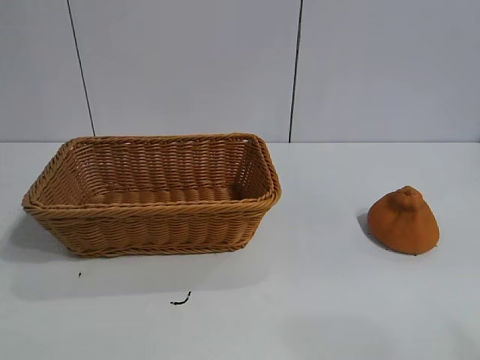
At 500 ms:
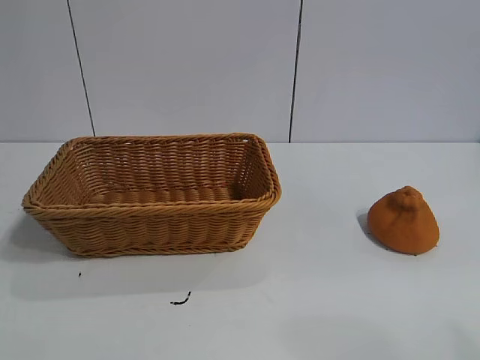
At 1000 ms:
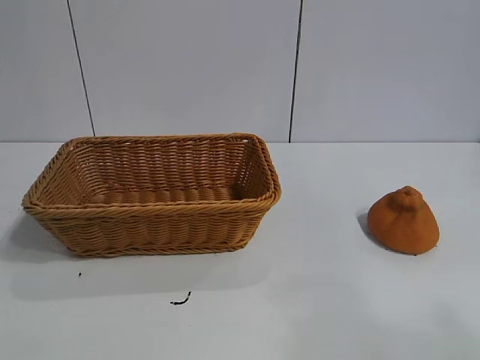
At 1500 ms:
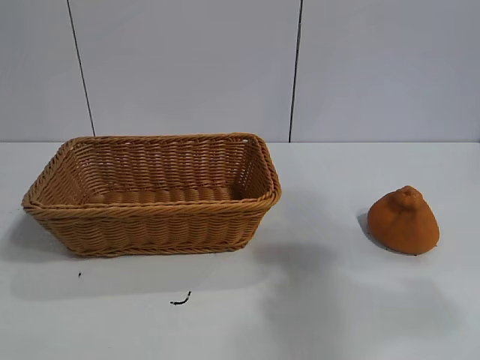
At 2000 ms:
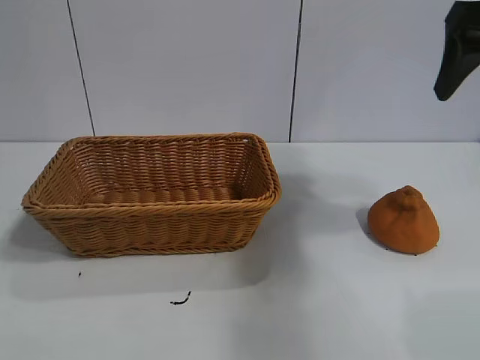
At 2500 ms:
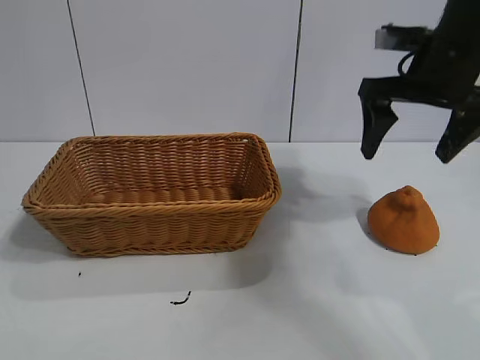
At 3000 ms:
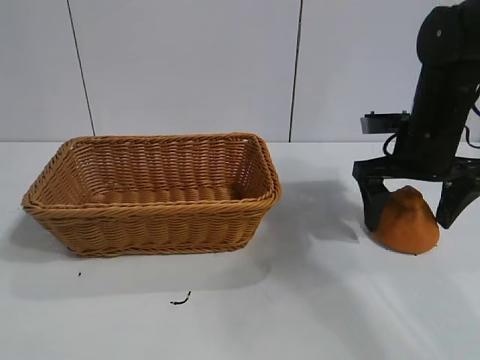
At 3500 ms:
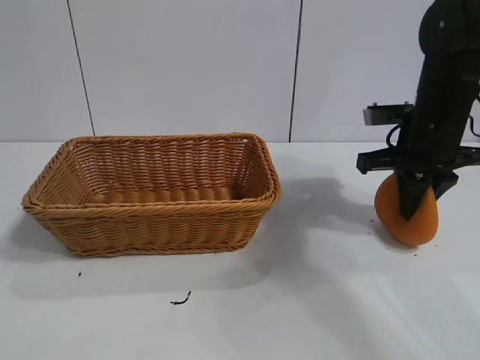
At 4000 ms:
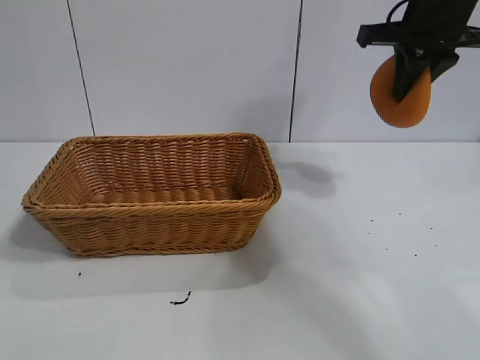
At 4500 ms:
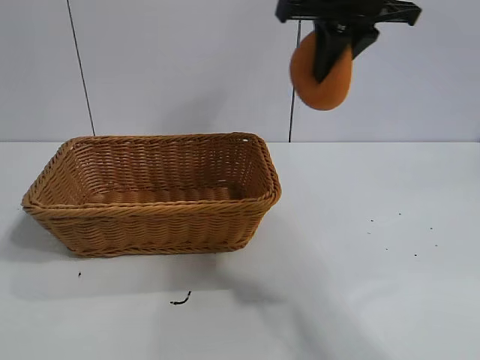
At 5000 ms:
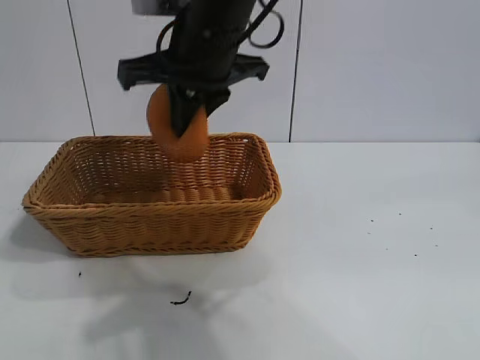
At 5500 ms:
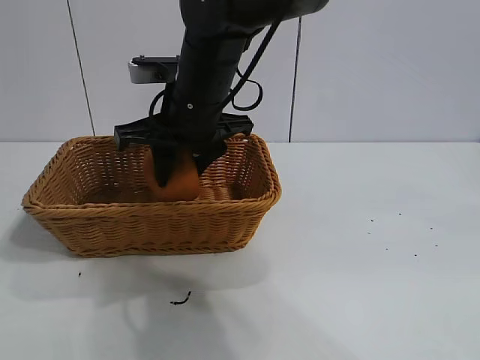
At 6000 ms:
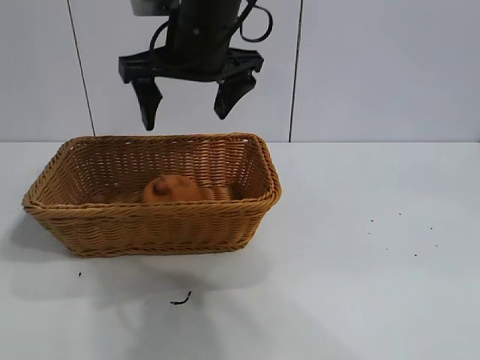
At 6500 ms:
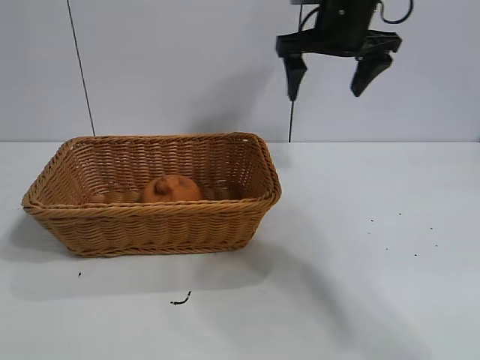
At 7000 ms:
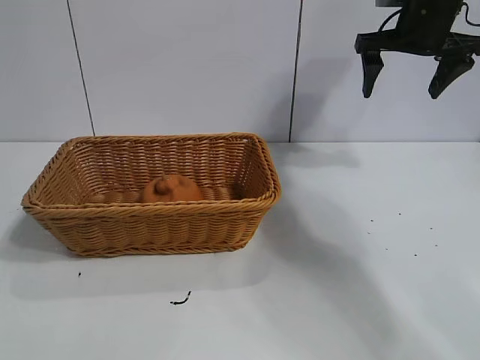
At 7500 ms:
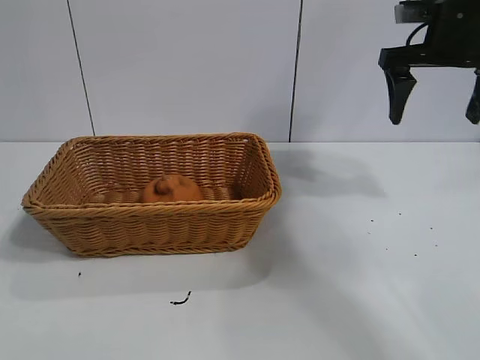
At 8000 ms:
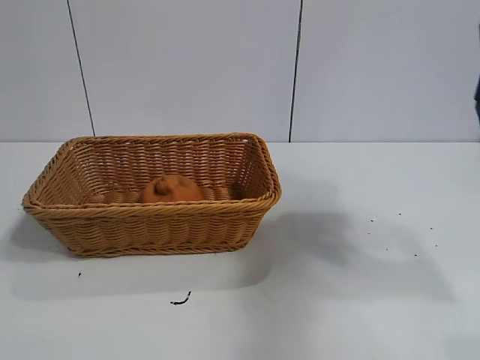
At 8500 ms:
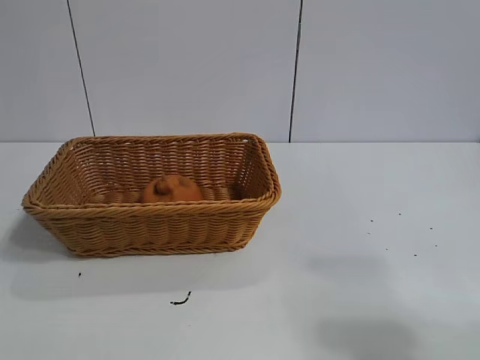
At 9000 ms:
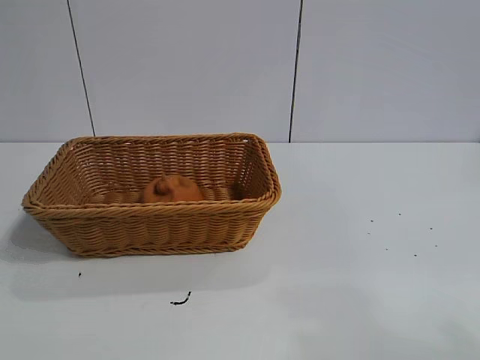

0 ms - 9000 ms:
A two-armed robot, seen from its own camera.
Task of the whole recording: pick up the orange and put it into the basket.
Step, 1000 ms - 3000 ms: Grasp the orange with right gripper.
Step, 3500 ms - 5500 ms: Place the orange in the basket with right gripper.

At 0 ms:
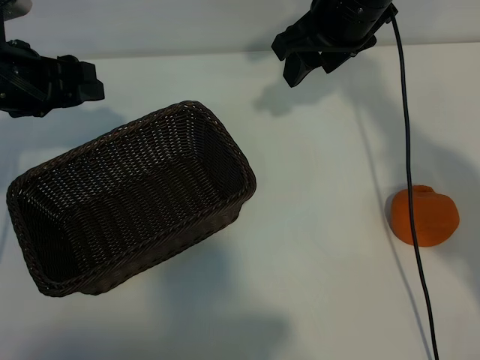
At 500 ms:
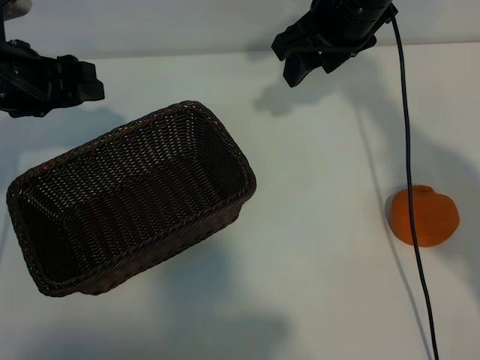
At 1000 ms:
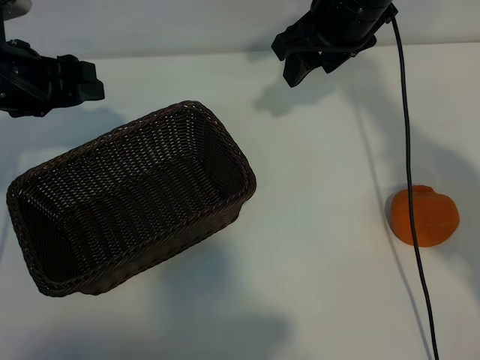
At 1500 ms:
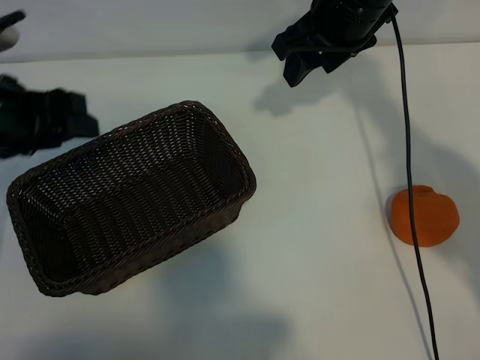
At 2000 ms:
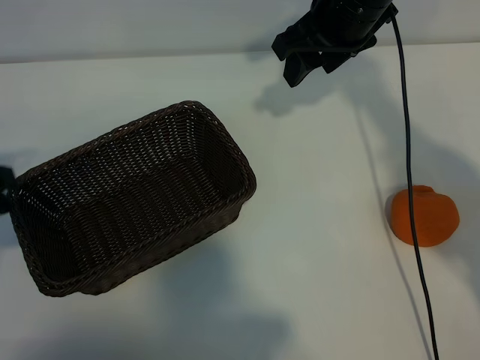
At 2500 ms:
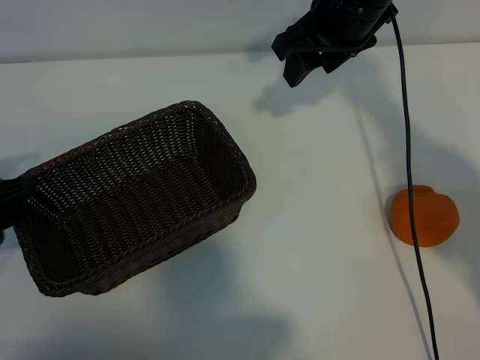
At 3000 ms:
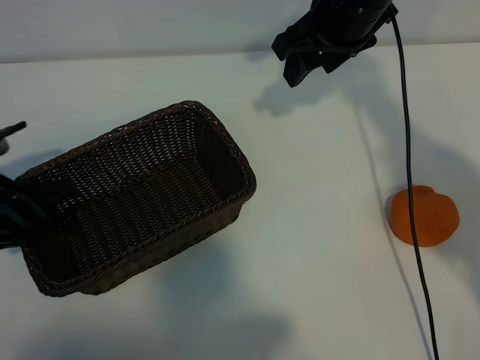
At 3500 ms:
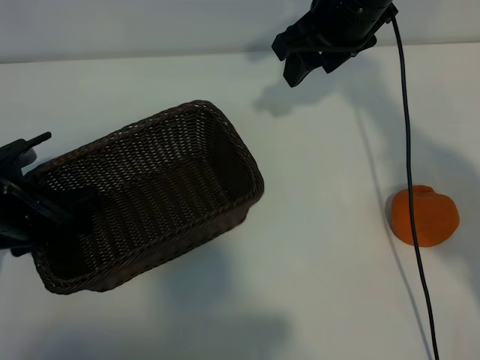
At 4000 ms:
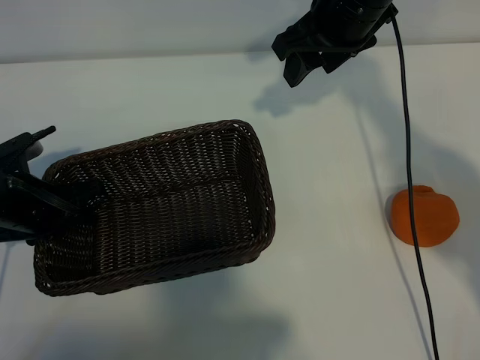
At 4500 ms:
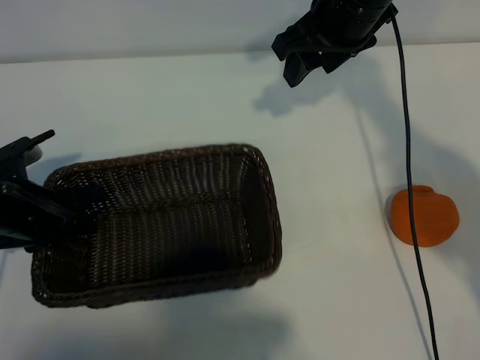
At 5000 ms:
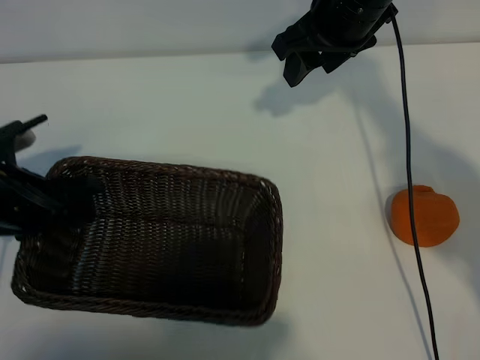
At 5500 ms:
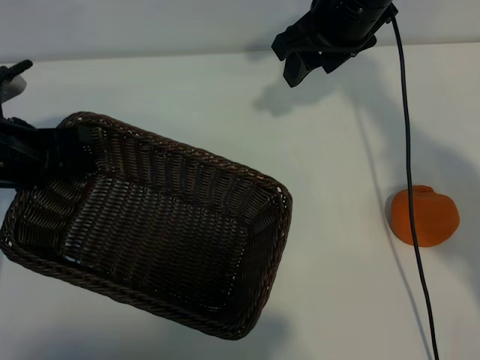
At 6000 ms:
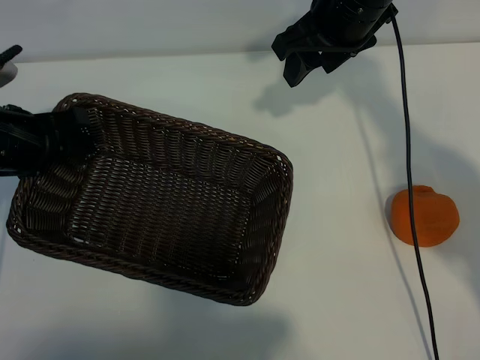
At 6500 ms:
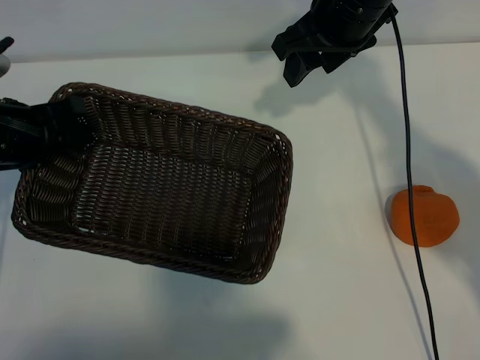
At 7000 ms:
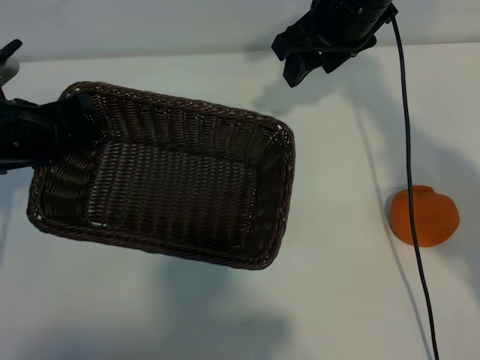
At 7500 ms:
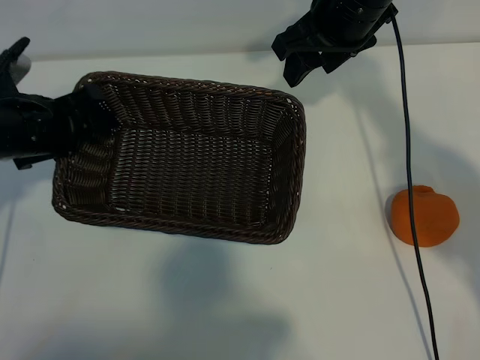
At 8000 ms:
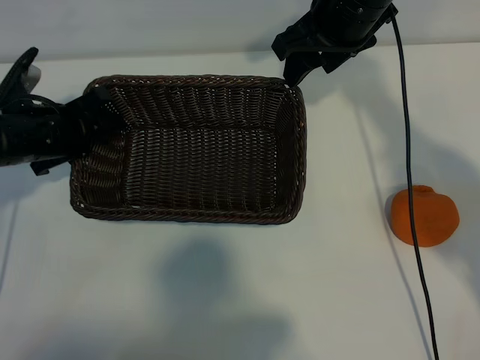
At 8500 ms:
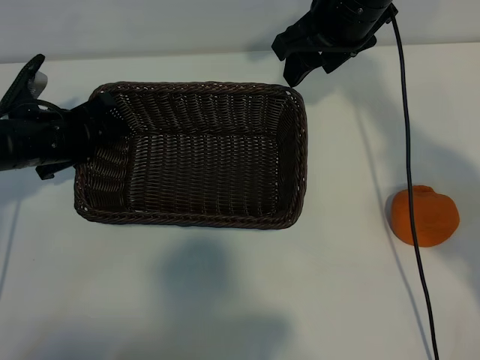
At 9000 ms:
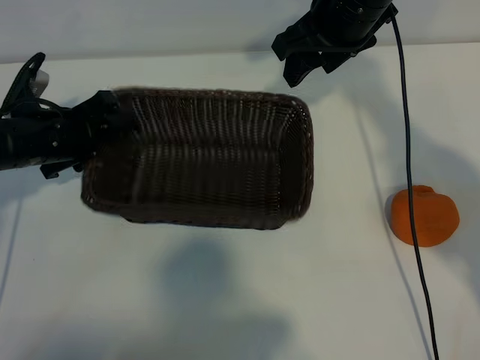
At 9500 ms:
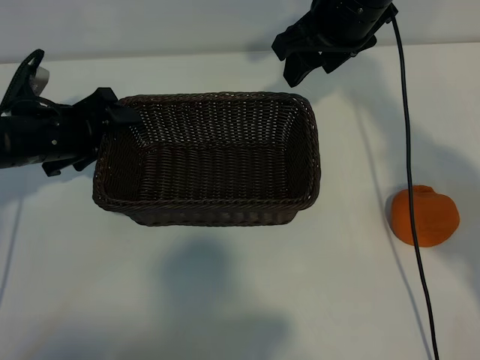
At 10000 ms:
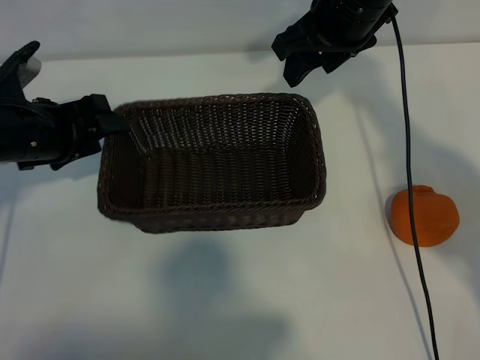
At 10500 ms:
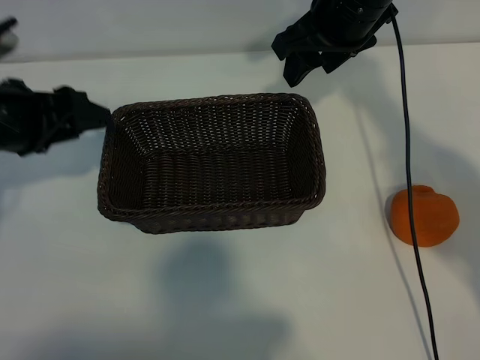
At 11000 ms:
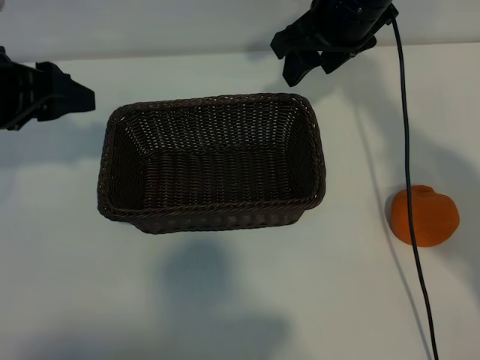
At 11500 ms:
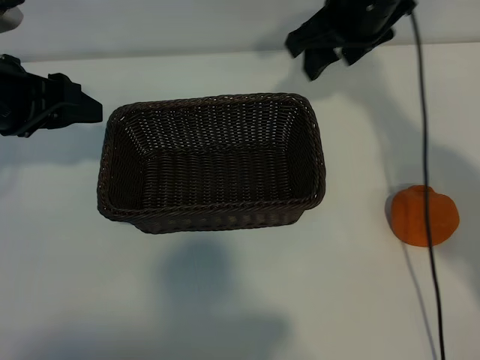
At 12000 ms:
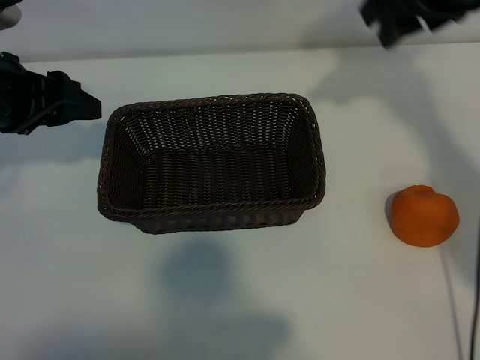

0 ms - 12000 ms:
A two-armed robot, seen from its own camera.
Task of the whole recording: pick up the orange and put it into the basket.
Step, 1500 ms - 3500 ms: Grasp the basket with left gripper.
Step, 4500 ms - 10000 ms: Place the basket in the center of view with left gripper.

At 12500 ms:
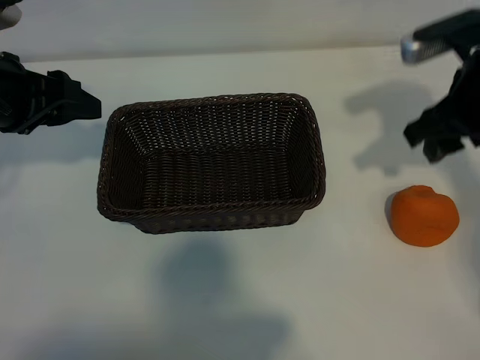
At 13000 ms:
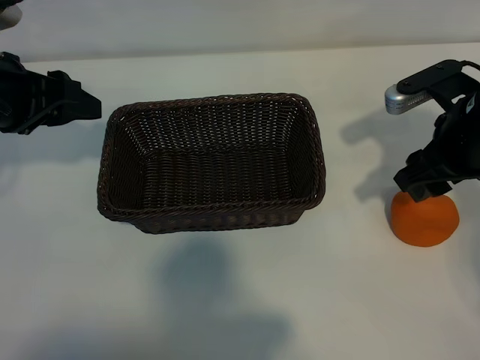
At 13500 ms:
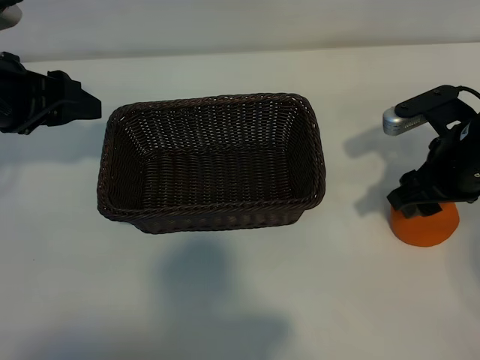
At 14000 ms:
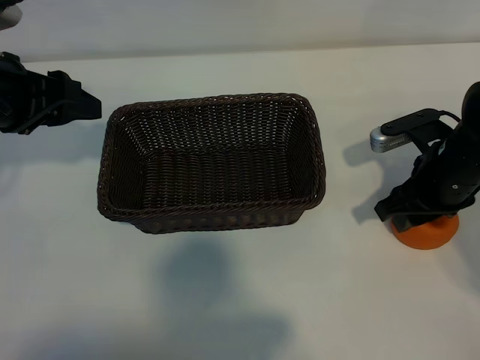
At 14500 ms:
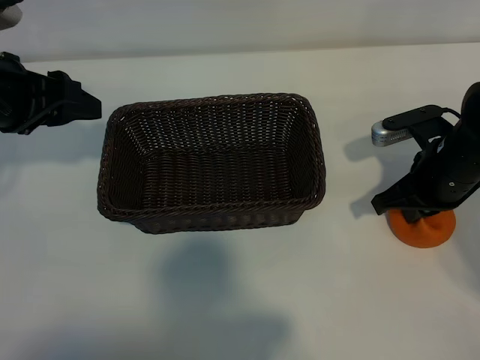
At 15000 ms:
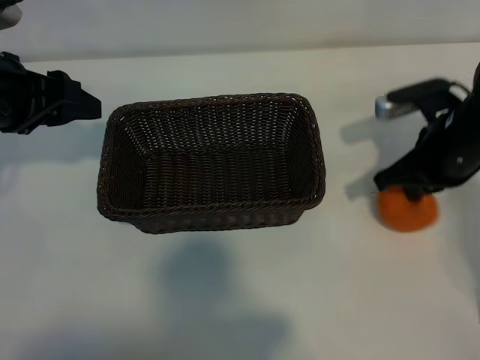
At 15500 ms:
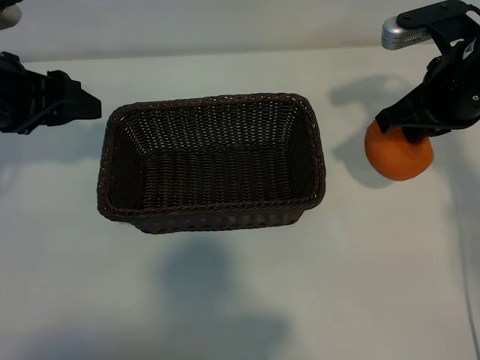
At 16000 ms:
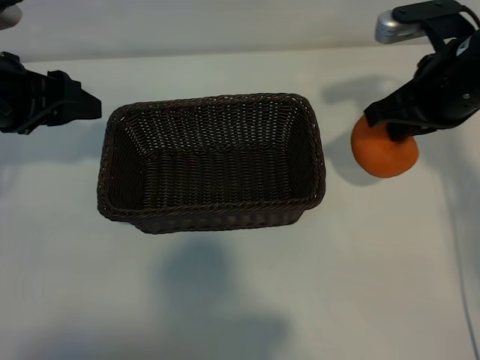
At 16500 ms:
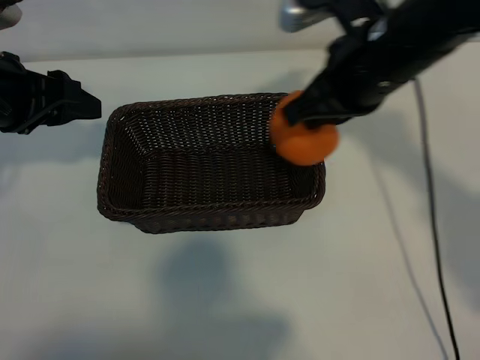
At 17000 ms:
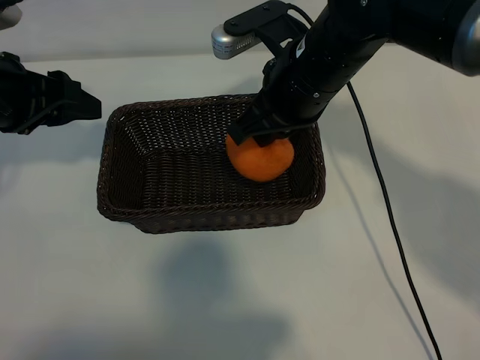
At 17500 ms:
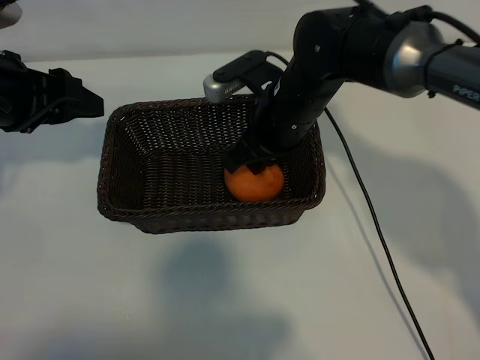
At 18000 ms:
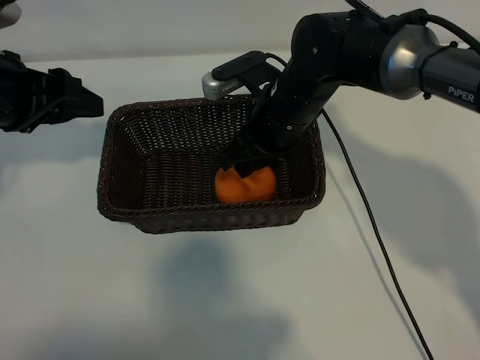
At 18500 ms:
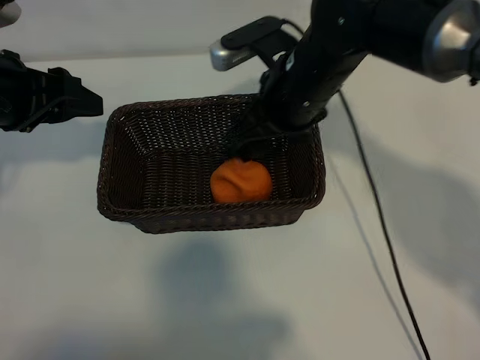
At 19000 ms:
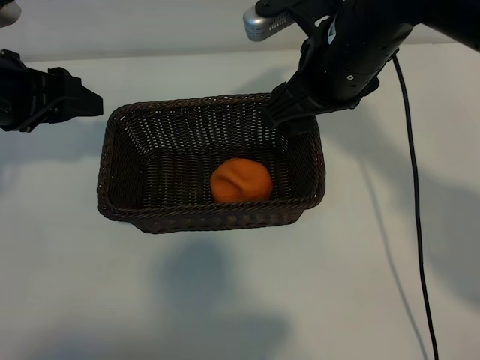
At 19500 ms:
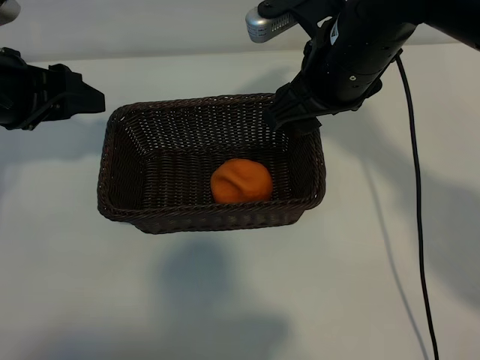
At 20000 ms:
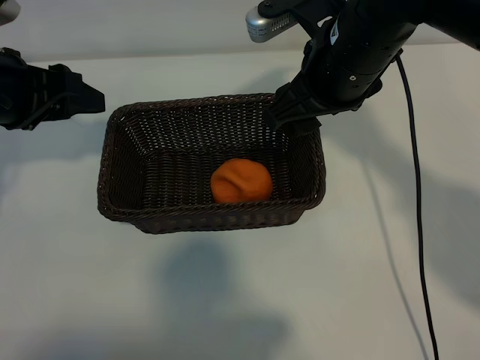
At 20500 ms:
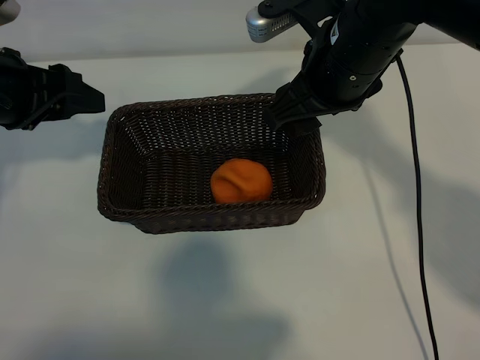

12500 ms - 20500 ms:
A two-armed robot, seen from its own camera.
Task of the whole recording: pick up the orange and put it into the basket.
Step, 14500 ms - 18000 ms: Place the orange in the basket with right gripper.
